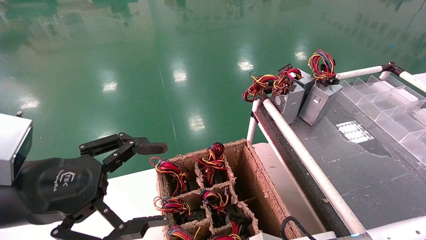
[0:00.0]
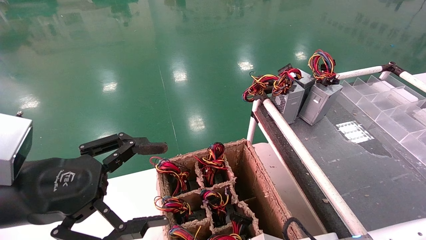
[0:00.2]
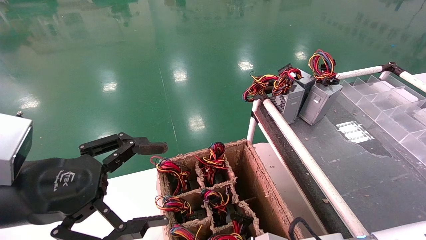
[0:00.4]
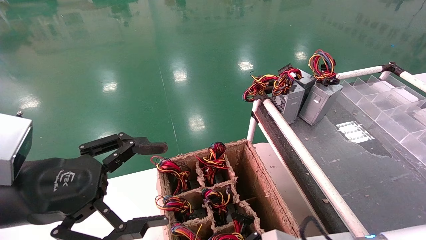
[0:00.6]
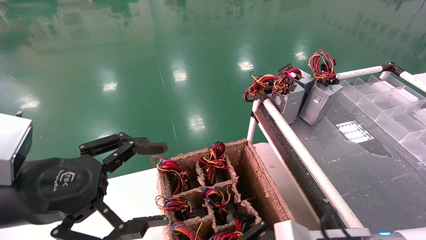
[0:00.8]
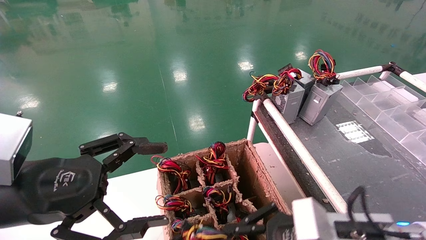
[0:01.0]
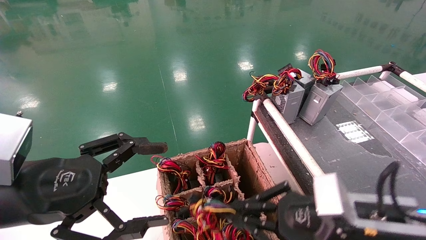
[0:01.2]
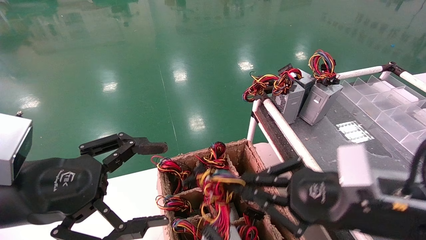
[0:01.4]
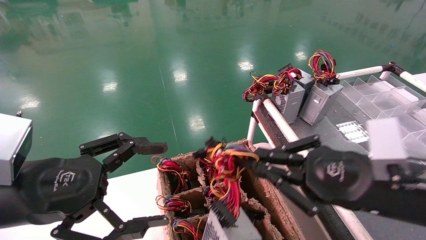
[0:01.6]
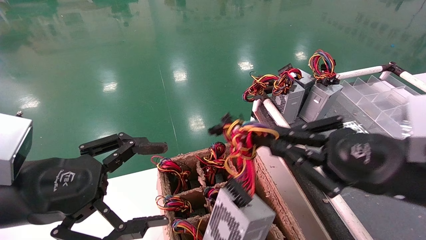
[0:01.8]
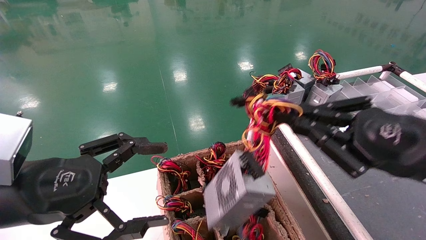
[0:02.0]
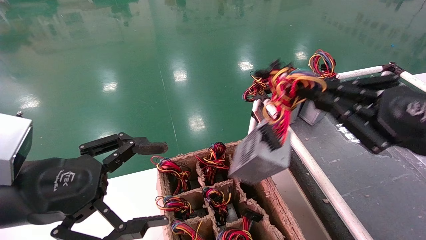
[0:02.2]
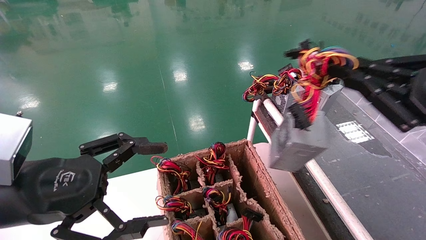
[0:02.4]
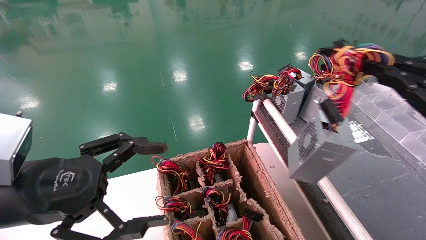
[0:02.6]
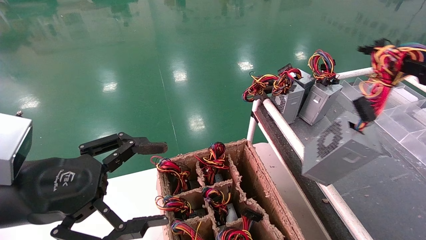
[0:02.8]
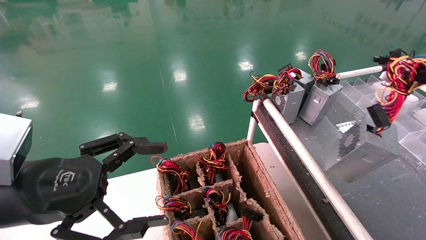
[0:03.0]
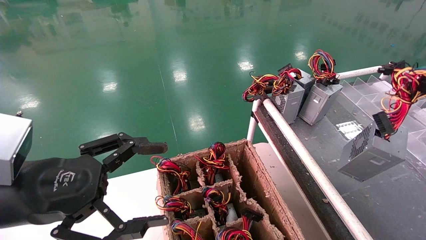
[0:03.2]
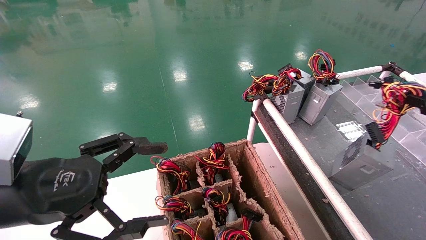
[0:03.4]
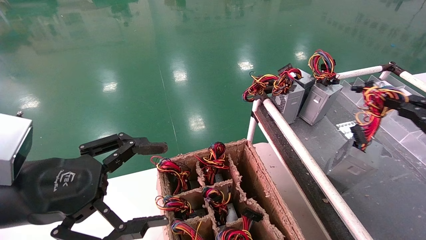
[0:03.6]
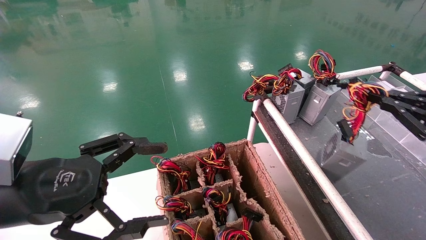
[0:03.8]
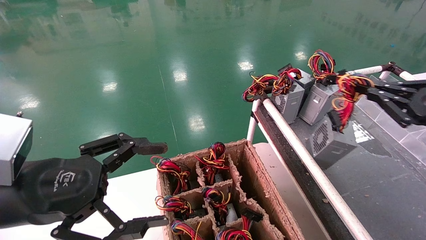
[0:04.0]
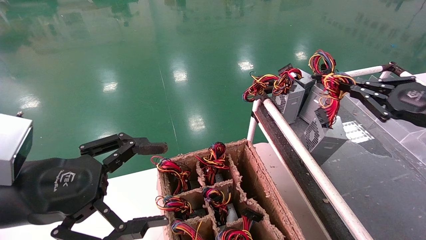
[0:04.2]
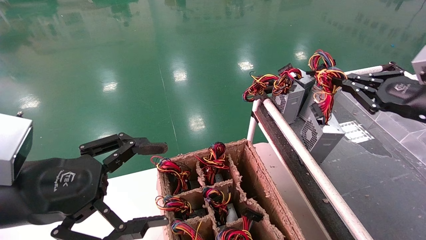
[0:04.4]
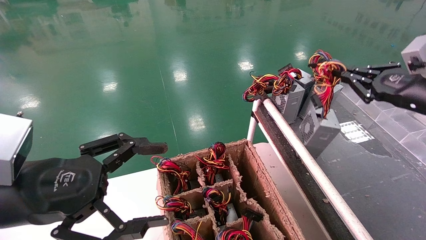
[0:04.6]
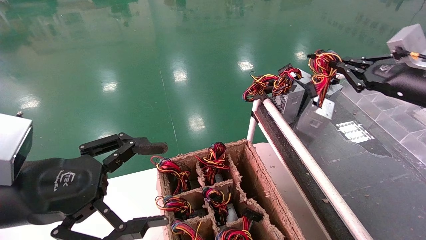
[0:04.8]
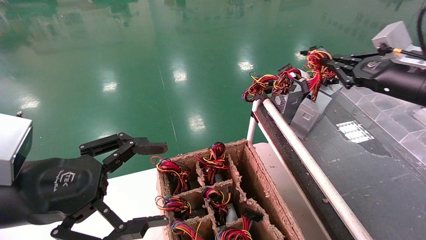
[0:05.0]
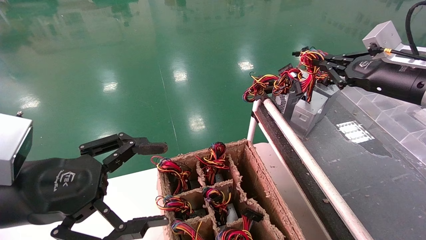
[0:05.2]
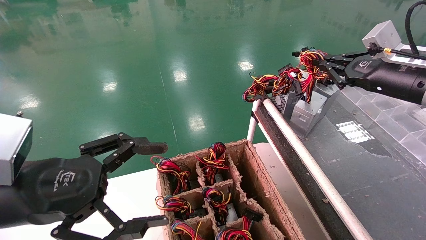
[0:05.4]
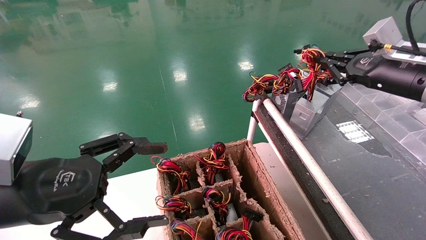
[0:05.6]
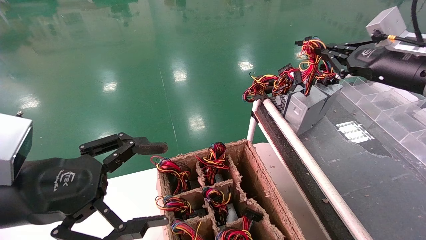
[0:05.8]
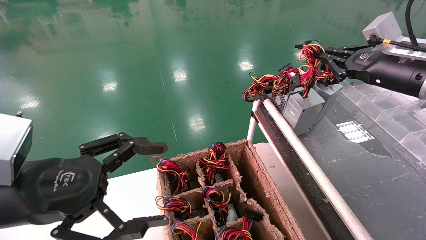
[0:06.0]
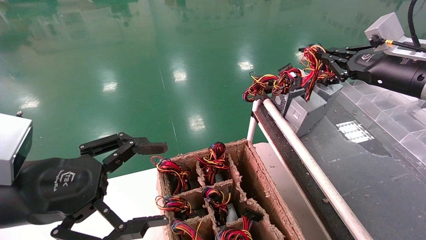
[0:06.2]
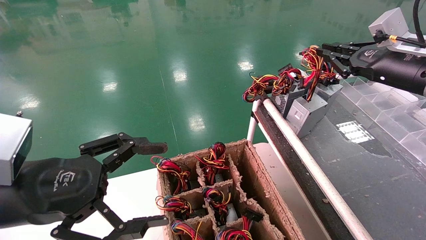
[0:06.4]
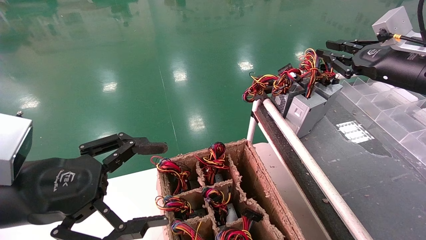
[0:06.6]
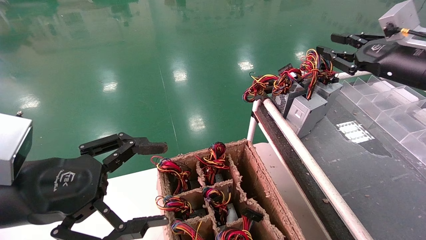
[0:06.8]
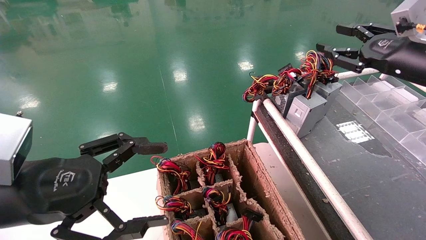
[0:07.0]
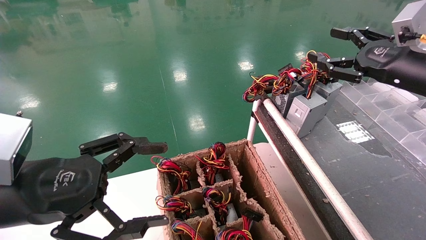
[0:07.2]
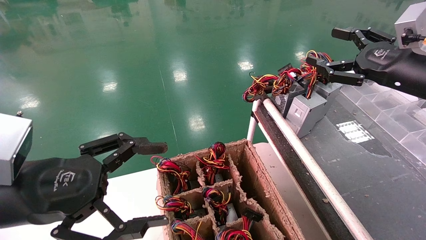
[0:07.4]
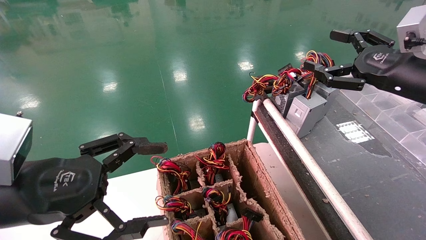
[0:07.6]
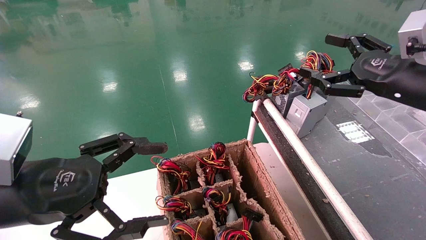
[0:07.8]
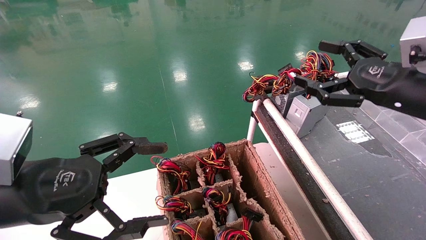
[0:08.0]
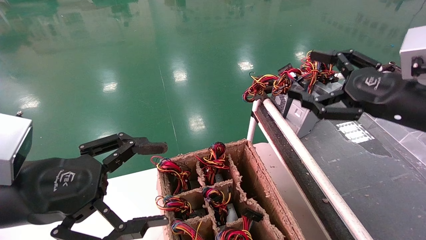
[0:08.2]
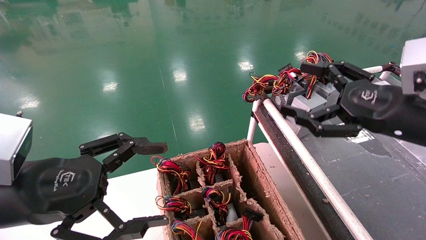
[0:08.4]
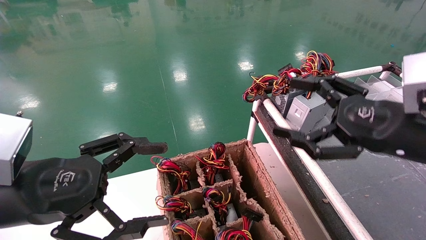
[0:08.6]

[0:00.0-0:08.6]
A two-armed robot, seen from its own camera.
Step, 0:00.0 to 0:06.2: Place the power supply on the operating table.
0:00.0 to 0:01.4: The right gripper moves upward and to the right, about 15 cm.
0:01.4 to 0:02.8: The right gripper travels to the right and upward by some 20 cm.
0:02.8 to 0:04.4: The right gripper heads forward, covering some 15 cm.
0:04.4 to 0:05.8: The right gripper is displaced forward by some 5 cm.
0:05.8 to 0:07.2: The right gripper opens its fingers.
0:07.2 to 0:08.6: The right gripper heads backward, to the left and downward, covering some 15 cm, and opens its fingers.
